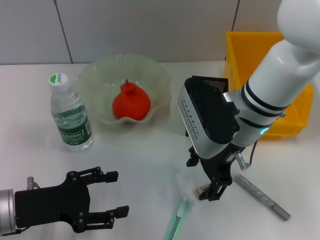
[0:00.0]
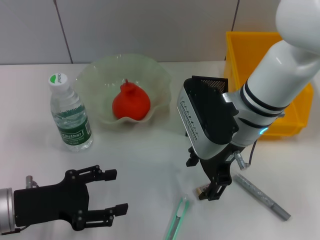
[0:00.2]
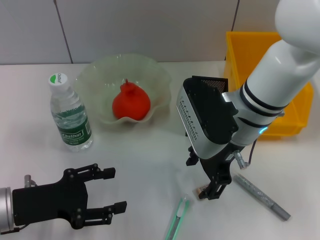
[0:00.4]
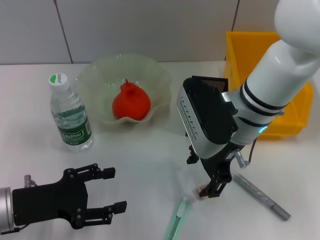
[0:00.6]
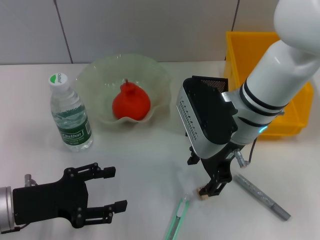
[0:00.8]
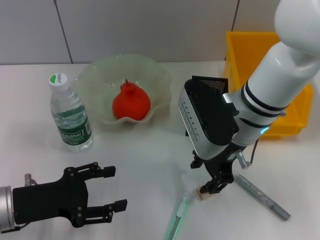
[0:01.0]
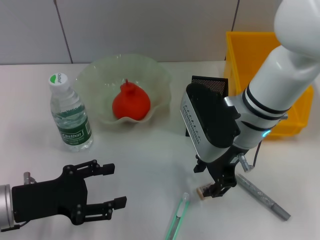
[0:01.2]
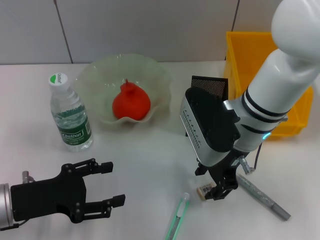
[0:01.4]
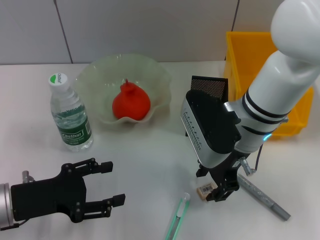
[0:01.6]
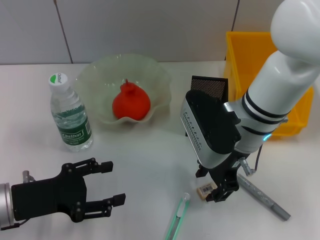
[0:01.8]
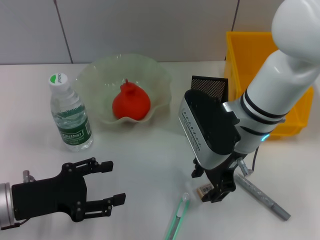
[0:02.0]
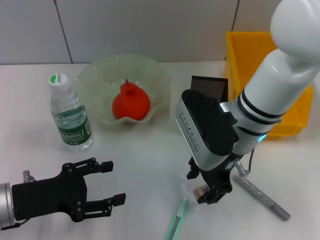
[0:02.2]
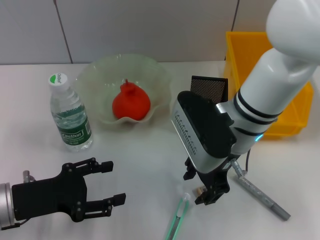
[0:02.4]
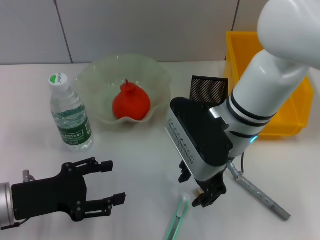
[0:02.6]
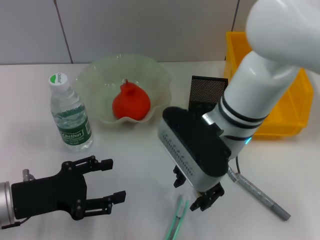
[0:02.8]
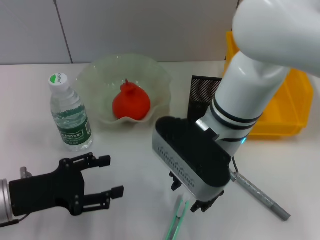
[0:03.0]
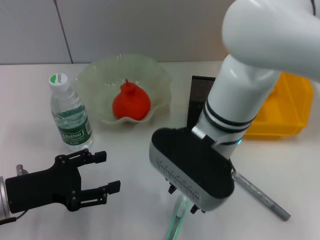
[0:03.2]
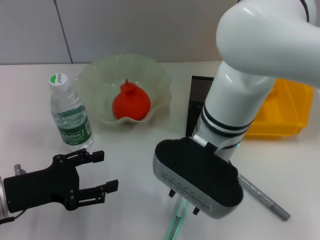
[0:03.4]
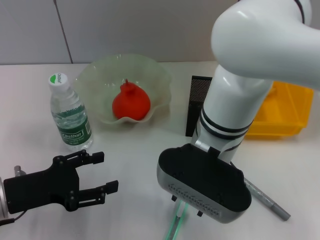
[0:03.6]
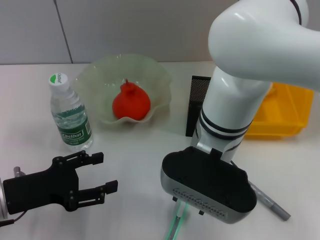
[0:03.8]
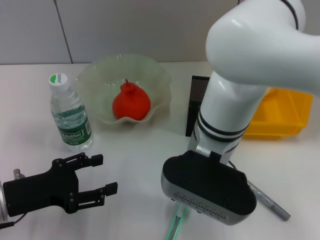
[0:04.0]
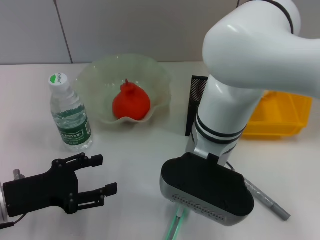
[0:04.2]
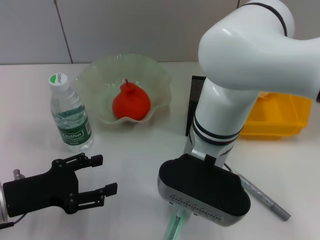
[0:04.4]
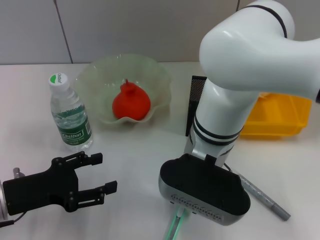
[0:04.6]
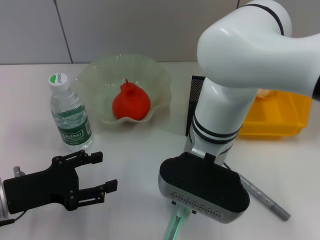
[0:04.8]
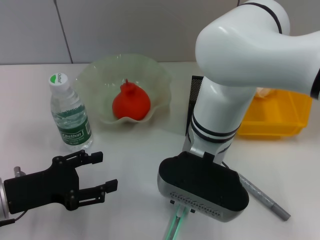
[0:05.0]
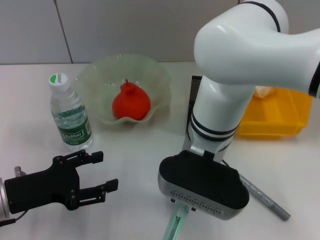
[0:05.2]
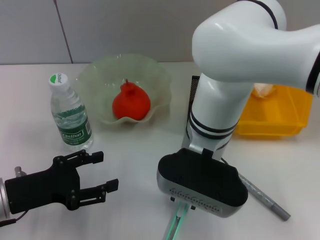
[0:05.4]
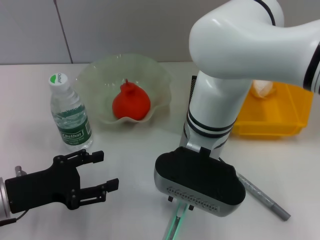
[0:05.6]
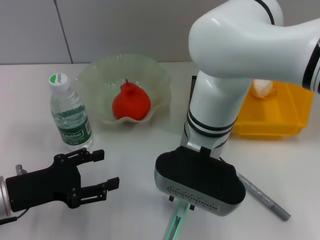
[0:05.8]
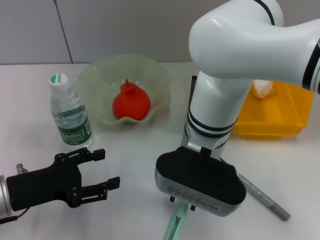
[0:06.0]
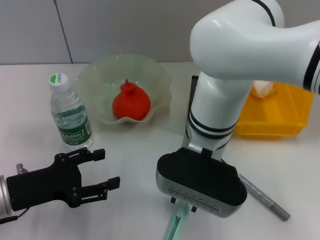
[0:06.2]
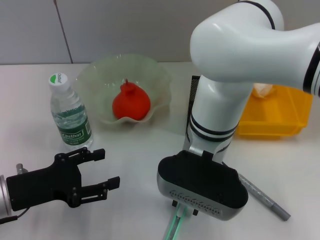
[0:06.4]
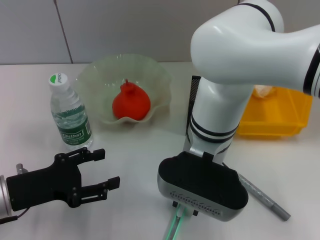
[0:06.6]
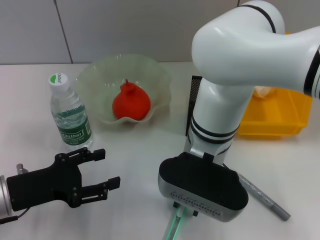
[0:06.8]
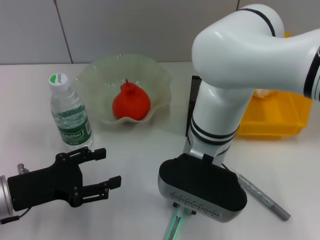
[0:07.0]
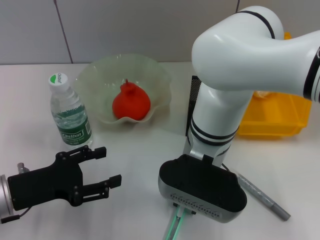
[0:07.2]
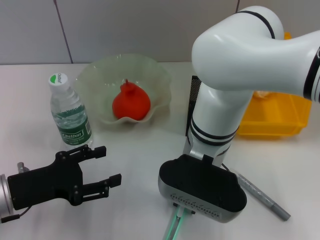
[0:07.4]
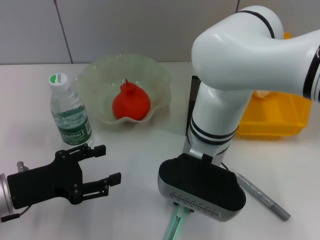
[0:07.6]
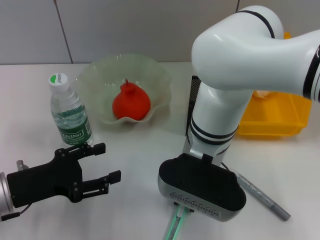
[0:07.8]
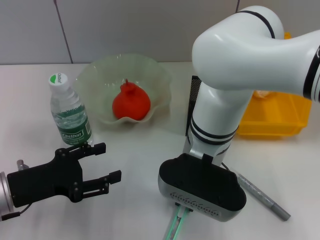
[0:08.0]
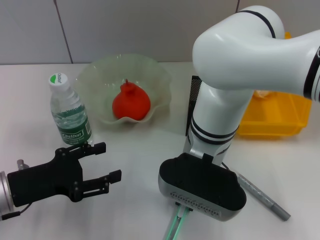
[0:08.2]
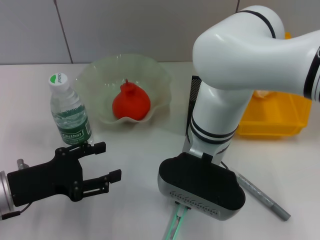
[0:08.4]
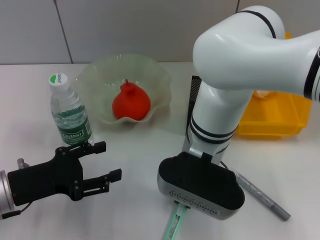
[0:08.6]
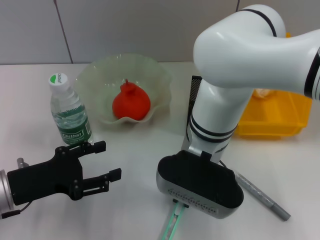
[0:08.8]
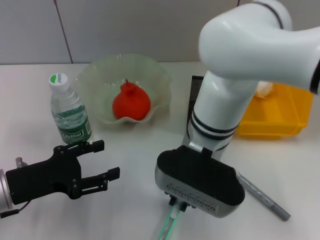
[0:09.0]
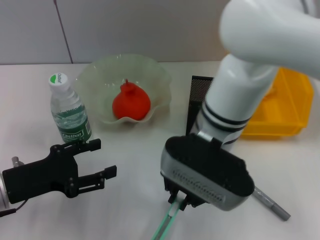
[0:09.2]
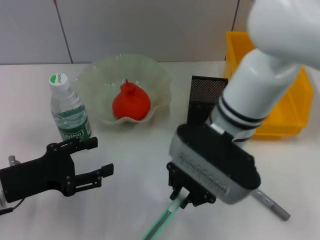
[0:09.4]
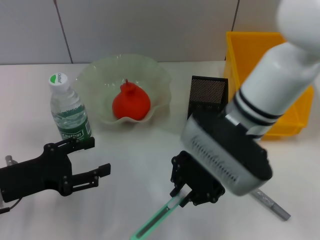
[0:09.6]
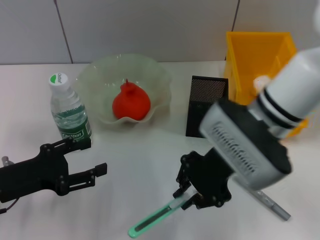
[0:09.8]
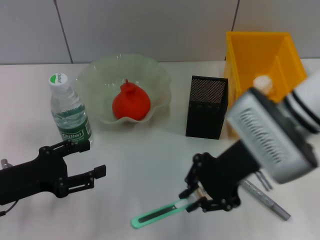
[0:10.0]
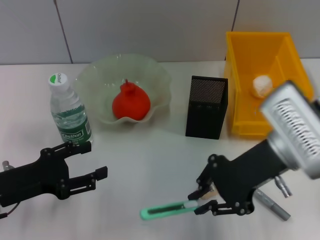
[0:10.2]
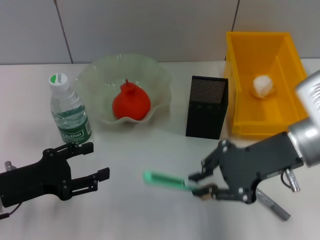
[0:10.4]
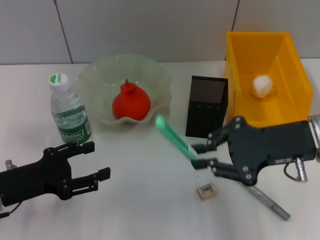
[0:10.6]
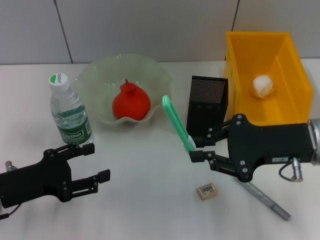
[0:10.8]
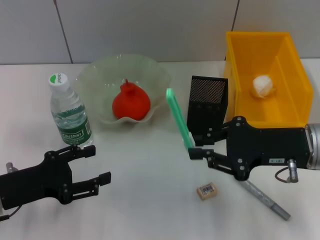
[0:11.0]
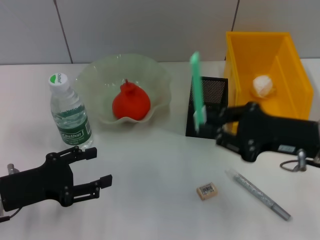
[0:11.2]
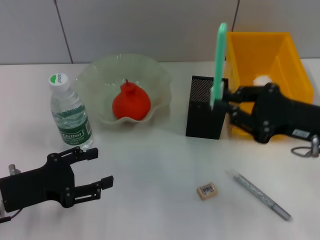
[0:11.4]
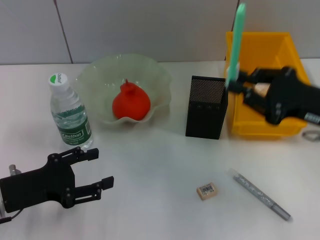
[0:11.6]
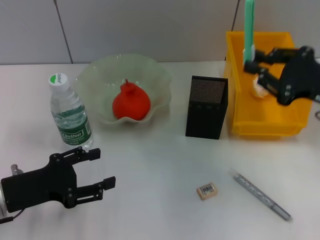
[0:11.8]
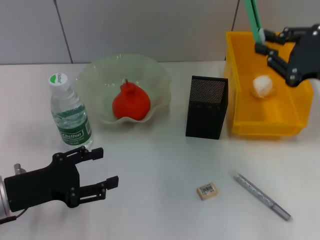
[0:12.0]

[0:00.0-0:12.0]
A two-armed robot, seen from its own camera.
Step, 0:00.0 to 0:08.4: Grab the blue utility knife with the right hand.
0:00.0 to 0:01.6: The right gripper closes.
0:01.6 to 0:03.0: The right gripper ends up approximately 5 cm from where it was.
0:04.4 to 0:06.0: Both grippers stay put.
0:06.0 to 0:07.6: Neither gripper changes place.
0:07.6 to 0:09.0: The grippers make only small movements.
0:09.0 to 0:10.4: The right gripper travels to the right by roughly 15 cm.
0:10.4 to 0:12.0: The right gripper goes about 10 cm to the right.

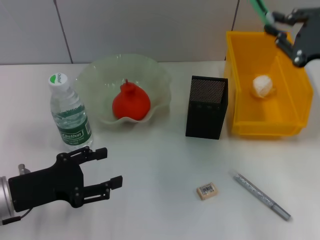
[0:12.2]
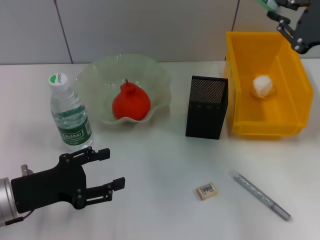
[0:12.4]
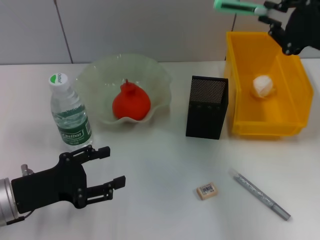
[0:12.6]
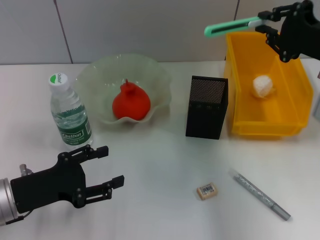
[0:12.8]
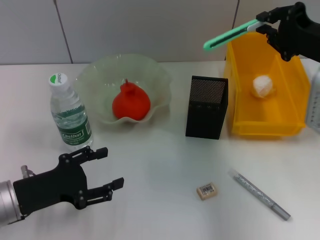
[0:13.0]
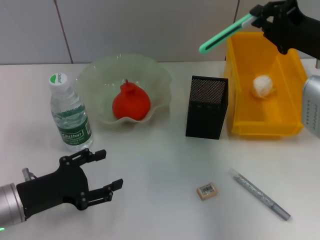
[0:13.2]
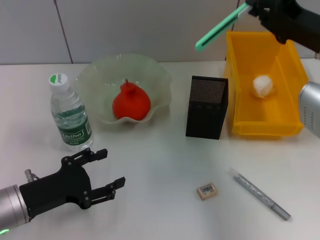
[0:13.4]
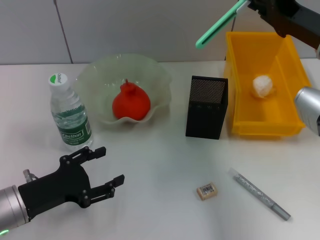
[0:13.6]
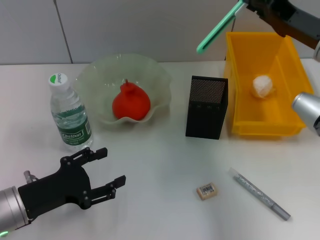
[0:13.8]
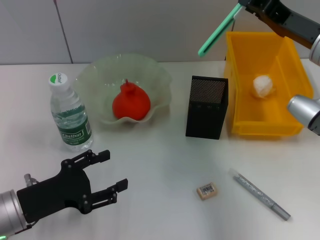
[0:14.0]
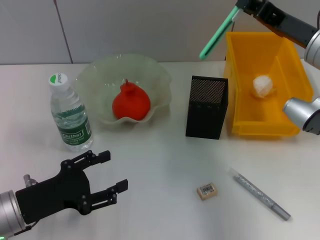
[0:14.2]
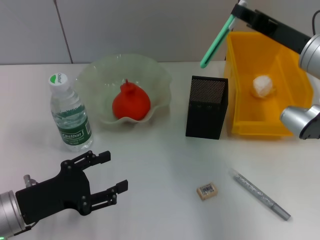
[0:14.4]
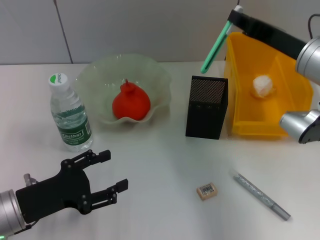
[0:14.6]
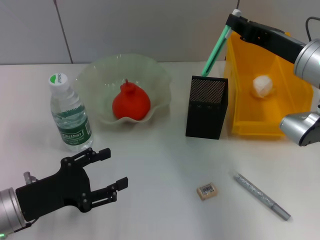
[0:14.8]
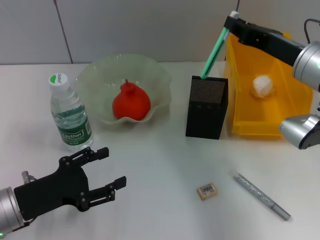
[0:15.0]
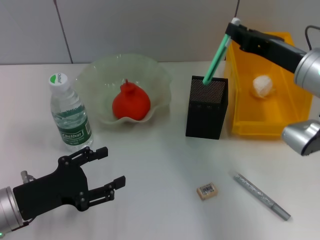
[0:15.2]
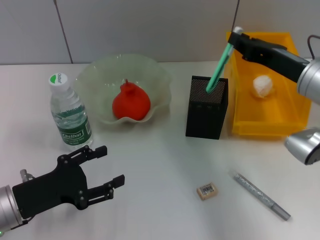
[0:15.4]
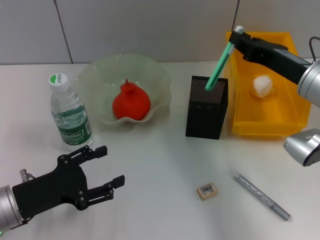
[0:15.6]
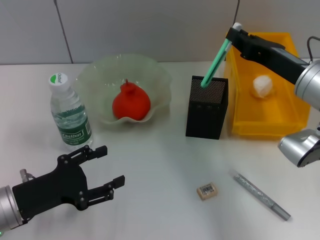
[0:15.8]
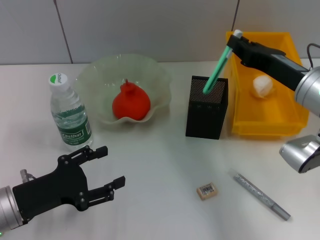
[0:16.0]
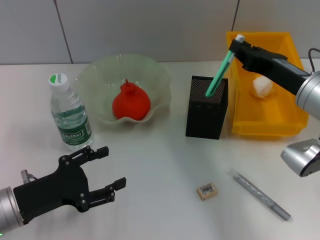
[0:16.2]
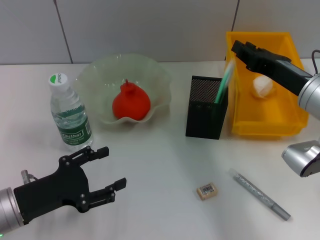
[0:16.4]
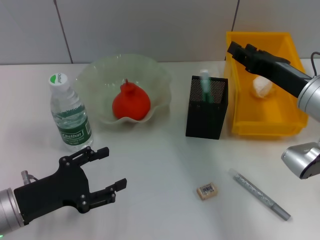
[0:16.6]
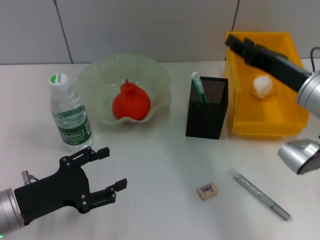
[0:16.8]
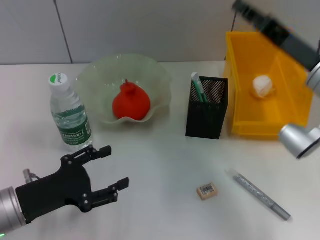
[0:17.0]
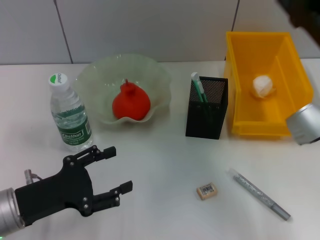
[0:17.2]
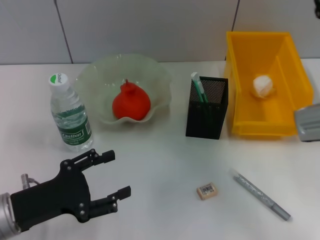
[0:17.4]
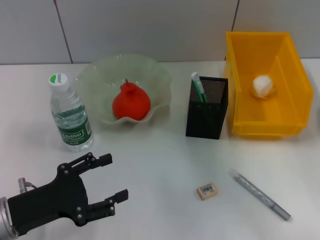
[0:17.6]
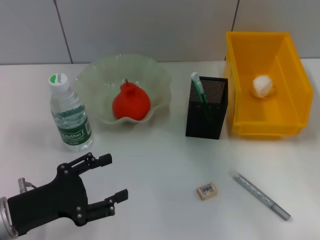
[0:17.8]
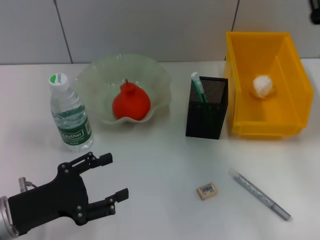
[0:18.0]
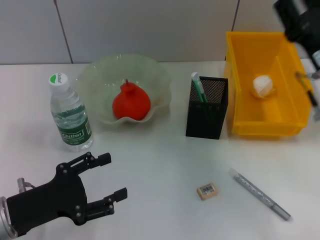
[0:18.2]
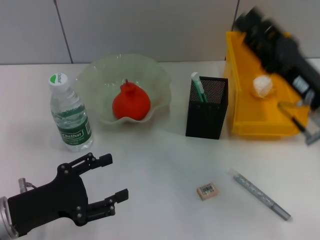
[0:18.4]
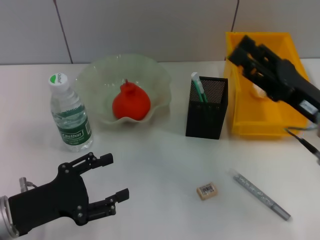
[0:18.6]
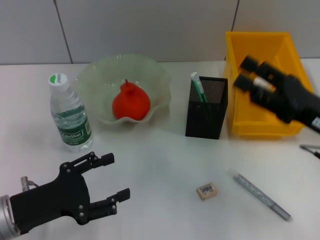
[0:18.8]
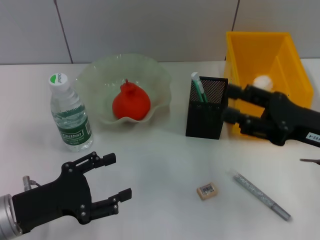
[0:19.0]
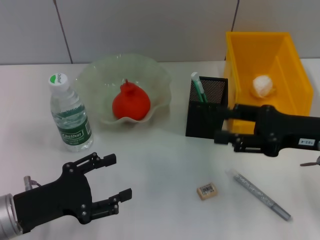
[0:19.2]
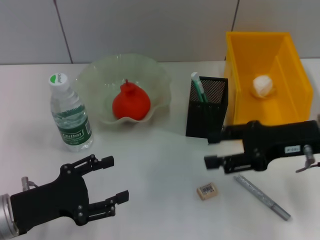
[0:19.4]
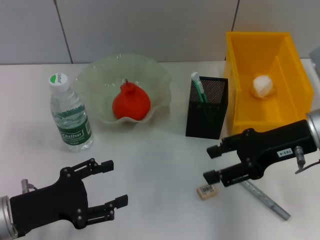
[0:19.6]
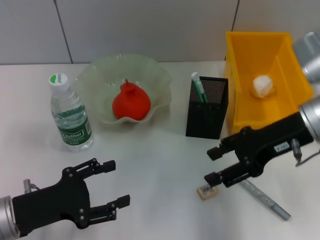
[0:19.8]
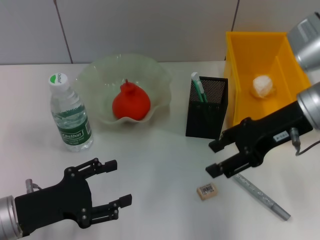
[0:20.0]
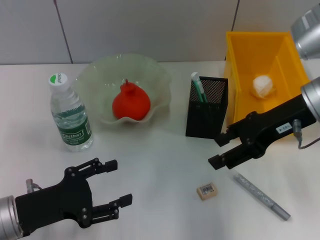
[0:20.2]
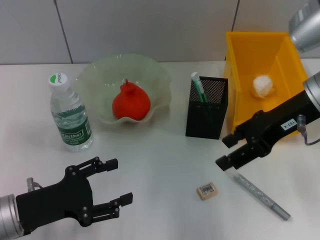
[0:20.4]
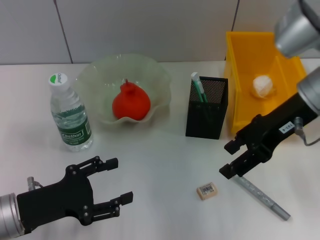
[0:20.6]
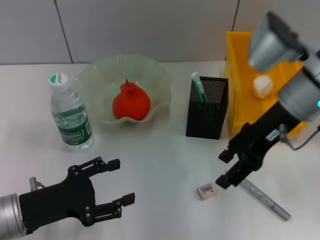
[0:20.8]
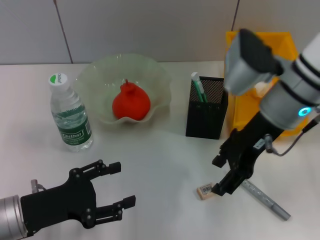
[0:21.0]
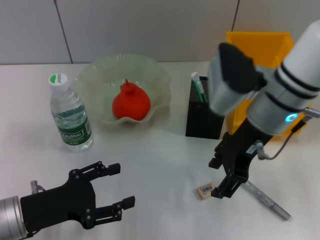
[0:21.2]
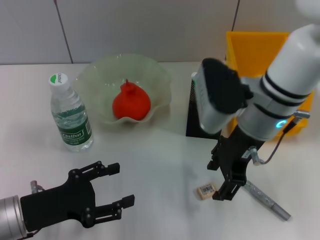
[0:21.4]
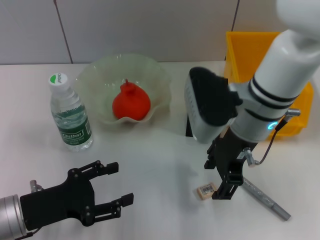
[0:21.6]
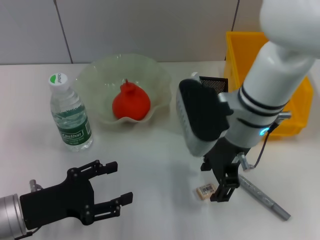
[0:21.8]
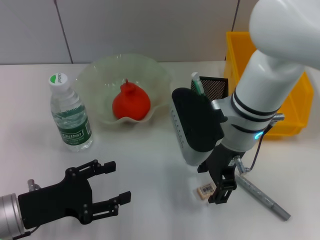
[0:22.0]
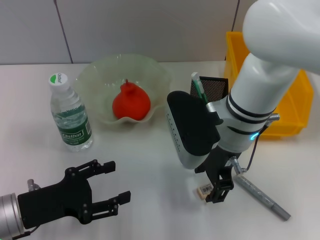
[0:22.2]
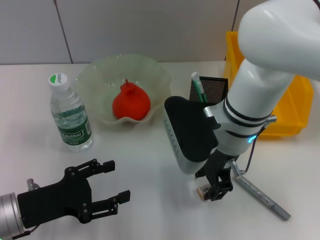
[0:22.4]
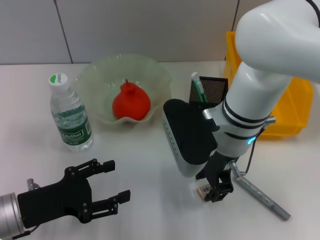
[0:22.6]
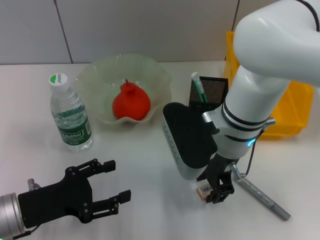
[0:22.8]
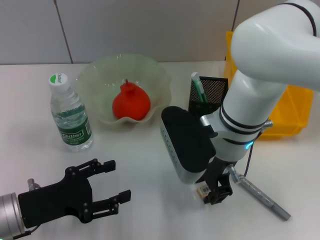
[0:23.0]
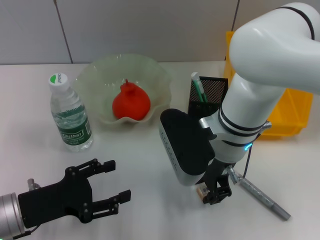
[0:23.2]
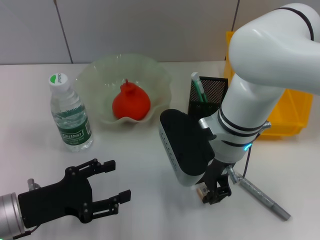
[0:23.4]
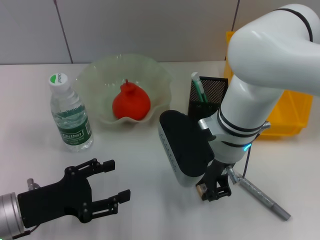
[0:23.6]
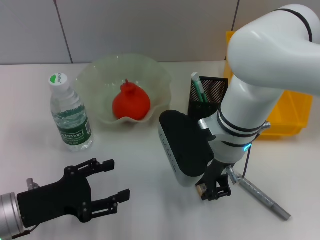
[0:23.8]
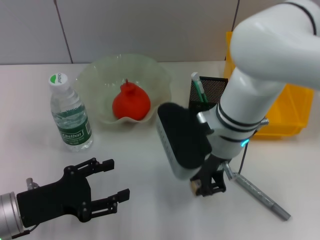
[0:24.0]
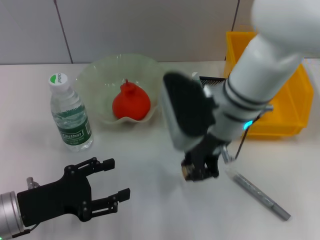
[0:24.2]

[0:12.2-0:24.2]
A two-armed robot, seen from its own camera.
Step, 0:12.2 to 0:16.6: Place the blue utility knife into the pen holder with the right hand.
Step, 0:16.8 to 0:23.6: Grab the eraser with the right hand.
0:12.2 to 0:13.8: The right gripper heads to the left, covering roughly 5 cm.
0:15.2 to 0:16.6: The grippers stay close to where they were, moving slightly.
0:16.6 to 0:18.2: The right gripper opens its fingers.
0:18.2 to 0:19.8: The right gripper ends up some 5 cm from where it was.
0:19.8 to 0:21.2: The right gripper shifts about 10 cm to the left.
0:21.2 to 0:22.6: The right gripper is displaced to the left by about 5 cm.
0:22.6 to 0:24.2: The right gripper closes.
